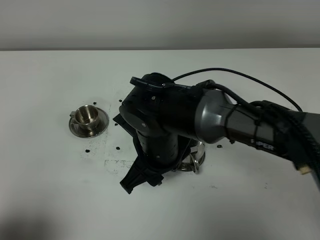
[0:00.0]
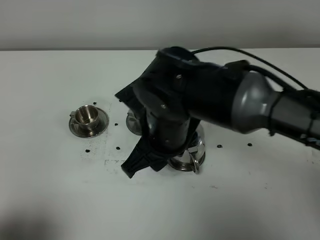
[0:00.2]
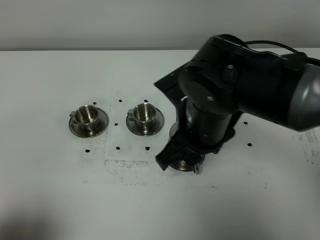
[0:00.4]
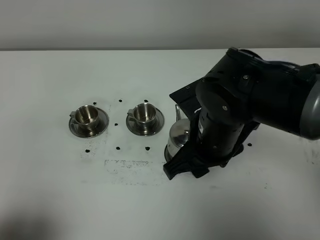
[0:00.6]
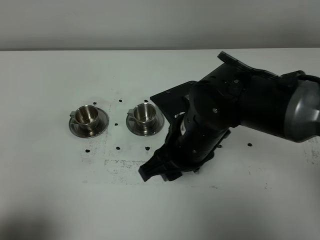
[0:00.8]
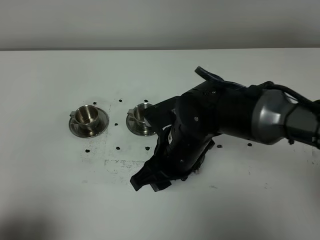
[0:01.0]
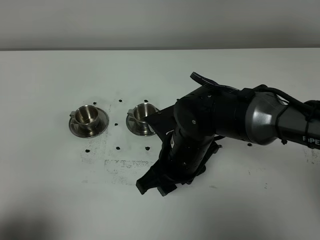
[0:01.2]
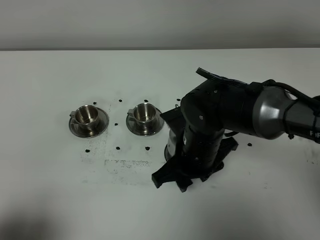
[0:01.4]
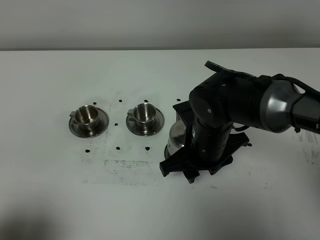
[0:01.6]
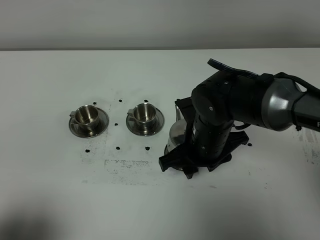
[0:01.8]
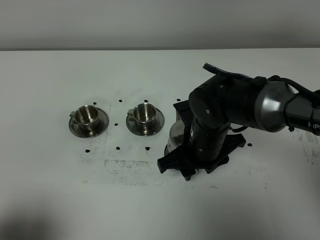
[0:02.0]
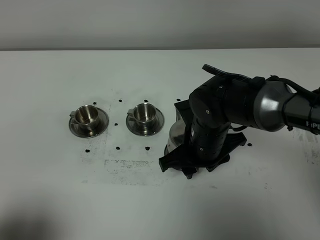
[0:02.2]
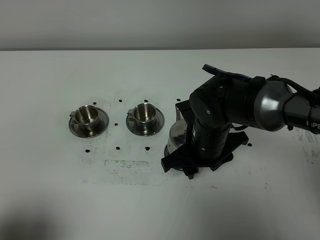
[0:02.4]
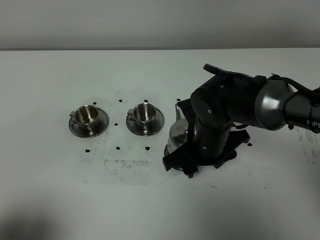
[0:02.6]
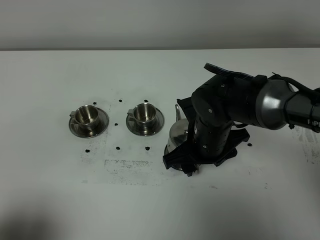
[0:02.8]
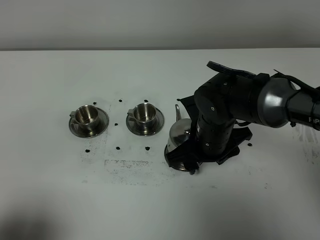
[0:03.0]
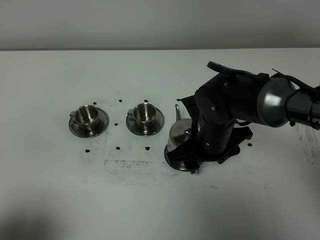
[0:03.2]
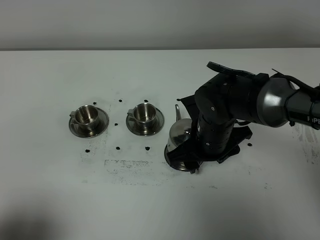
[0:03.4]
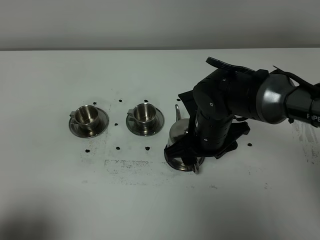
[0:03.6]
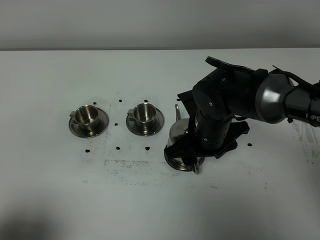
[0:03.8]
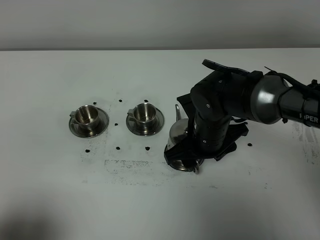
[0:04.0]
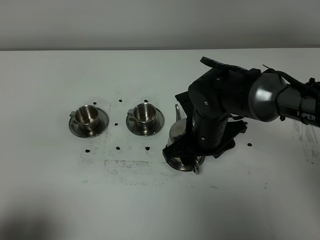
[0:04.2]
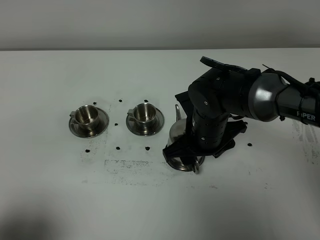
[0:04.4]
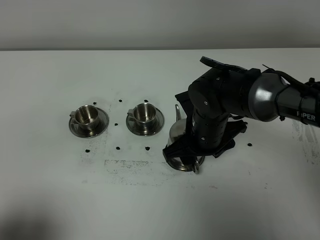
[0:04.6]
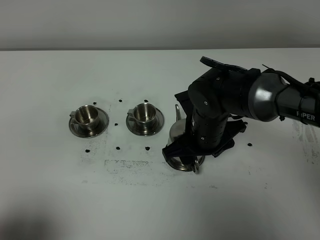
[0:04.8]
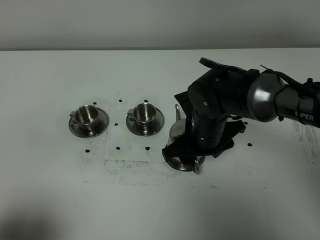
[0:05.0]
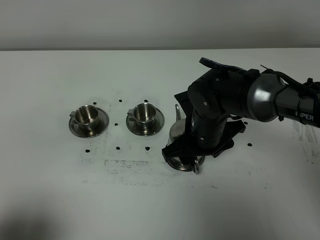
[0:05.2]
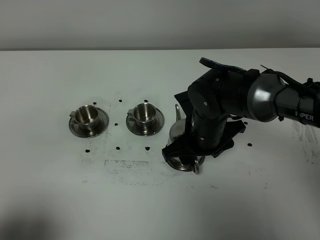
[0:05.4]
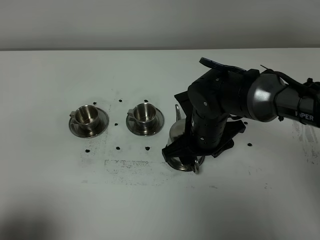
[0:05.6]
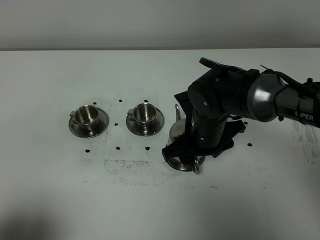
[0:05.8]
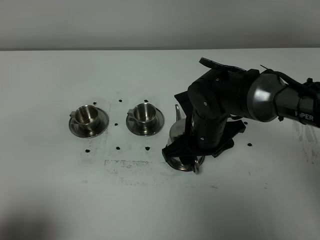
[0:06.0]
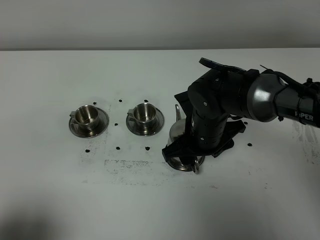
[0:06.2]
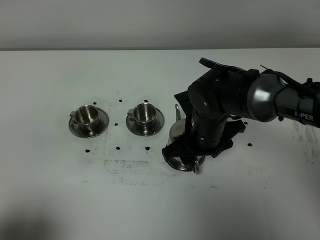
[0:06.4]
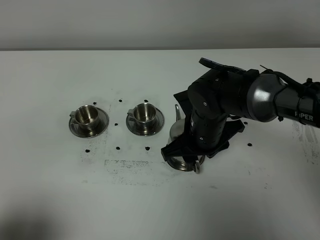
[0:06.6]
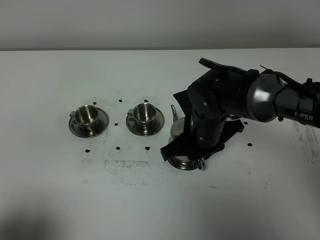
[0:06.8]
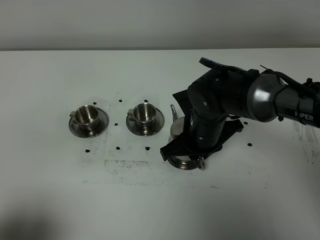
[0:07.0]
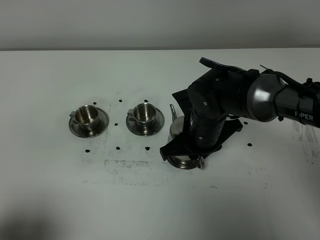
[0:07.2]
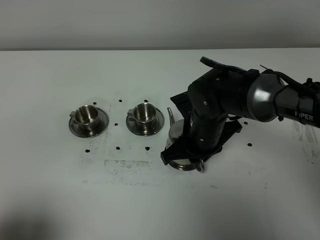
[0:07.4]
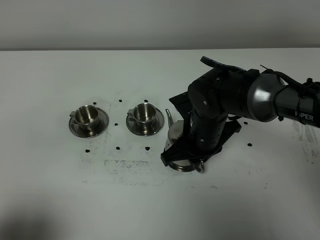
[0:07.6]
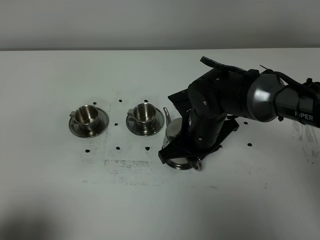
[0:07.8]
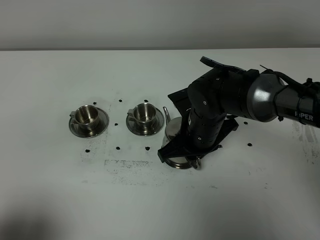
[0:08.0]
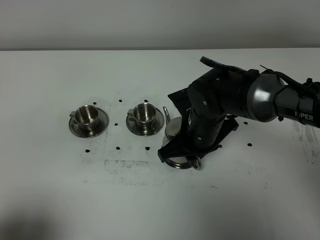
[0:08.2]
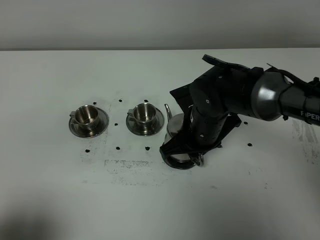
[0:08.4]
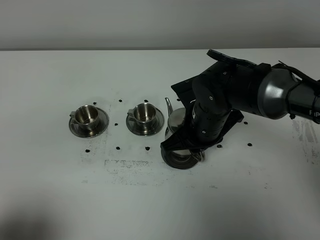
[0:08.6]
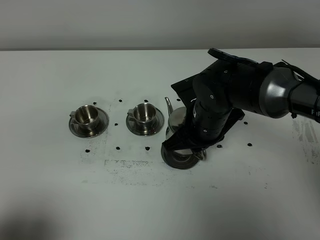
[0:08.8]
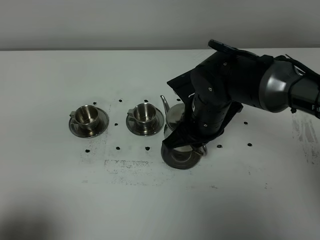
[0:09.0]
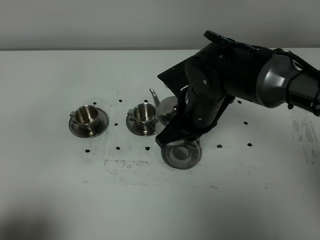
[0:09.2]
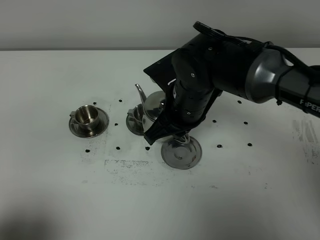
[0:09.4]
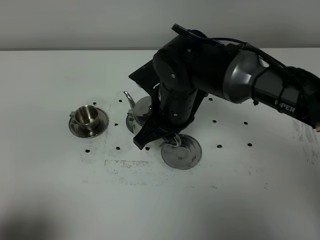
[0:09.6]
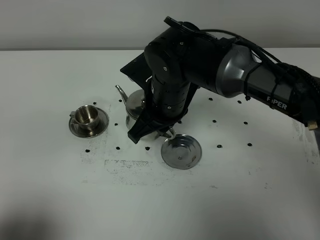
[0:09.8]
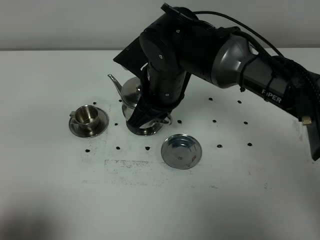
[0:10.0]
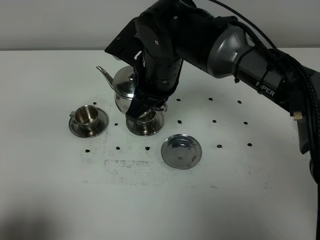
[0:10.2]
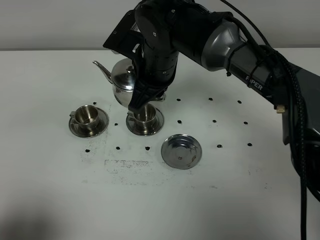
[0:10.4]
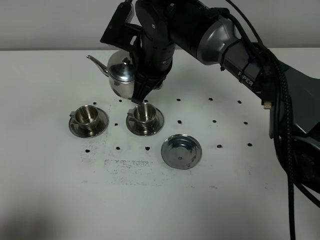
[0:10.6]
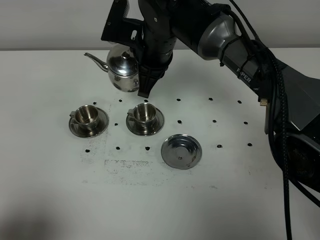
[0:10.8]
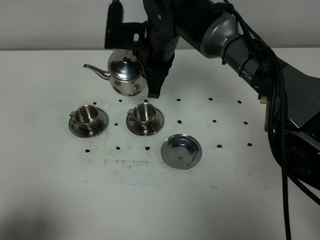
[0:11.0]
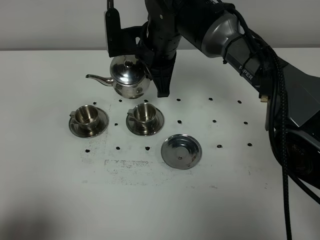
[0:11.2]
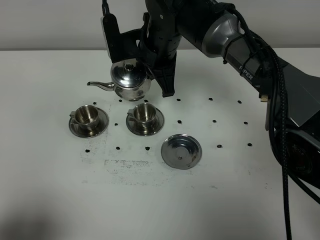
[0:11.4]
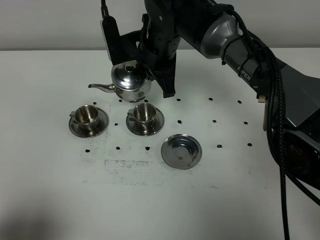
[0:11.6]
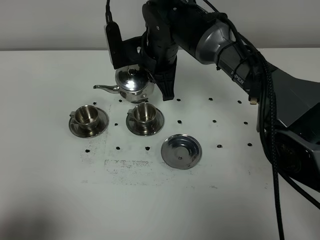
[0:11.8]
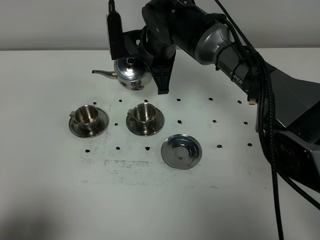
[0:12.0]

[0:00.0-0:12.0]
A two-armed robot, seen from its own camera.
Task of the whole recording: grasp the stainless steel teapot and pour the tea into the two stainless steel teacups one by one, put the stainless steel teapot back in its original place.
Step, 0:00.0 to 0:08.6: Pick up the teapot with the right gripper.
0:00.0 to 0:01.6: The right gripper goes roughly 10 cm to the right, and moves approximately 5 cm upward and comes back.
0:01.6 to 0:04.4: The grippers make only small movements.
0:04.4 to 0:06.0: Neither gripper changes place.
0:06.0 to 0:07.6: The right gripper closes.
0:07.6 to 0:09.0: The grippers stay close to where they were, moving slightly.
0:09.0 to 0:10.4: The right gripper travels to the left, upward and forward by some 10 cm.
0:10.4 to 0:12.0: The right gripper is displaced forward by about 5 cm.

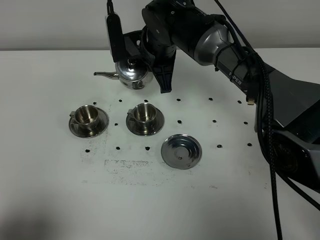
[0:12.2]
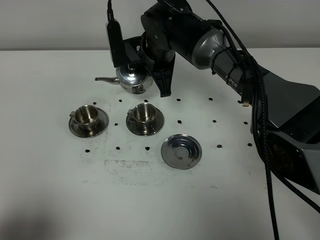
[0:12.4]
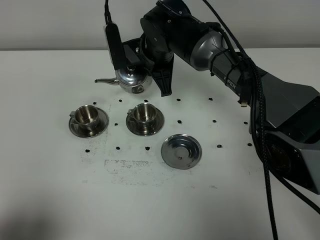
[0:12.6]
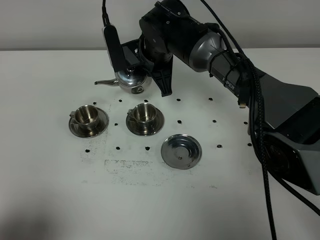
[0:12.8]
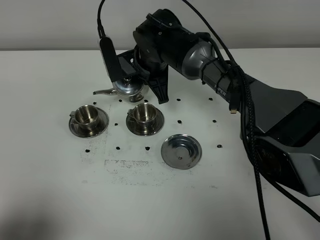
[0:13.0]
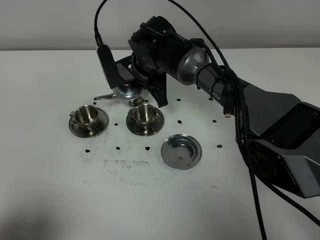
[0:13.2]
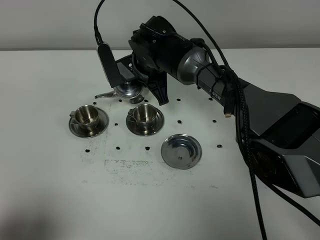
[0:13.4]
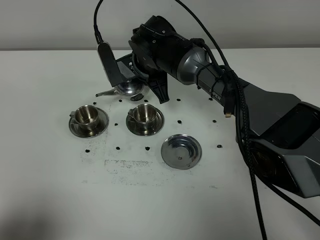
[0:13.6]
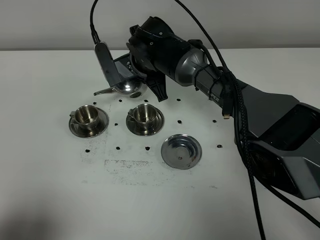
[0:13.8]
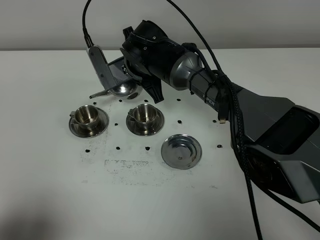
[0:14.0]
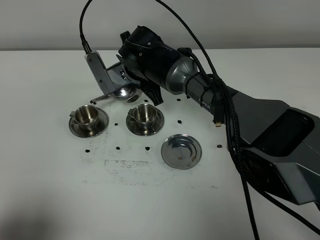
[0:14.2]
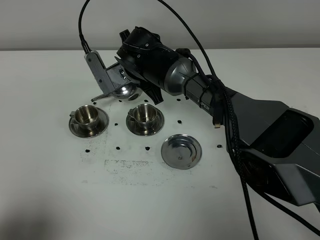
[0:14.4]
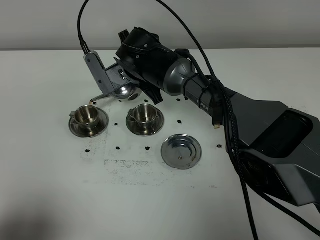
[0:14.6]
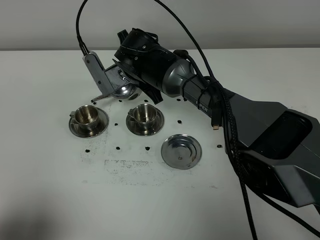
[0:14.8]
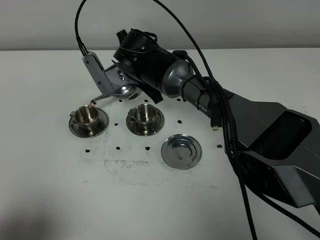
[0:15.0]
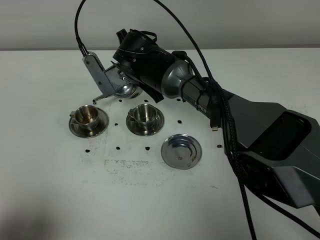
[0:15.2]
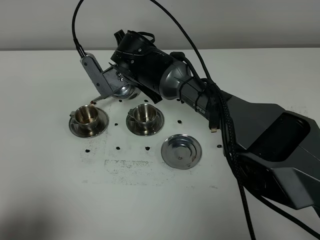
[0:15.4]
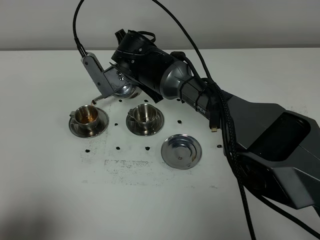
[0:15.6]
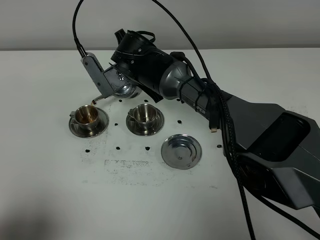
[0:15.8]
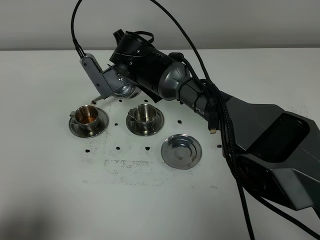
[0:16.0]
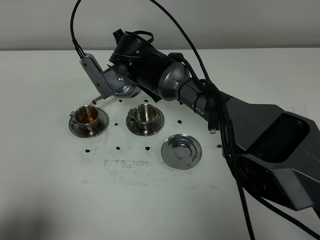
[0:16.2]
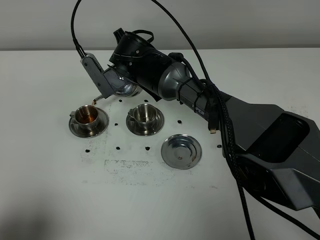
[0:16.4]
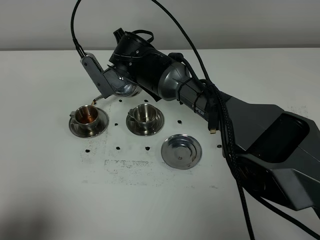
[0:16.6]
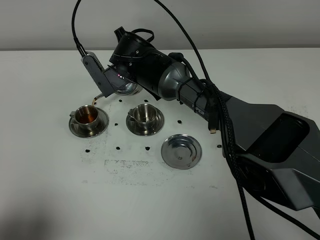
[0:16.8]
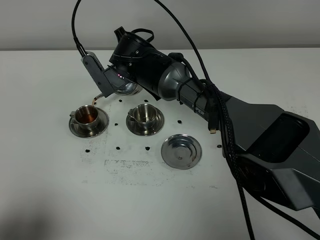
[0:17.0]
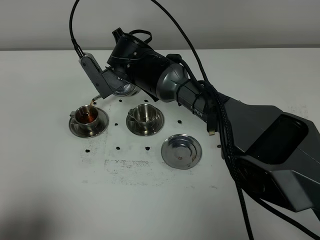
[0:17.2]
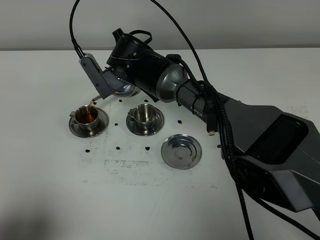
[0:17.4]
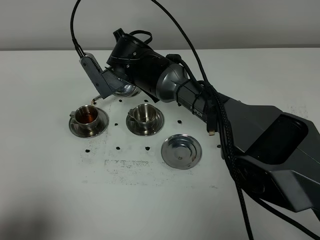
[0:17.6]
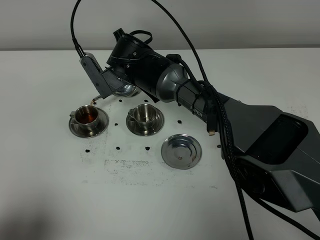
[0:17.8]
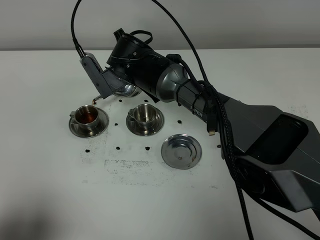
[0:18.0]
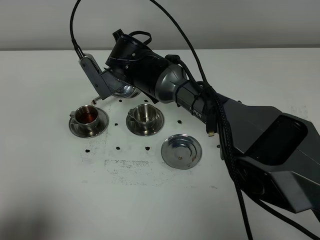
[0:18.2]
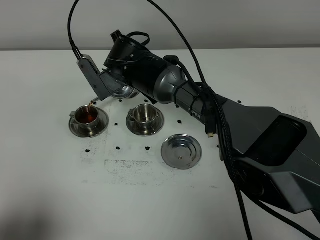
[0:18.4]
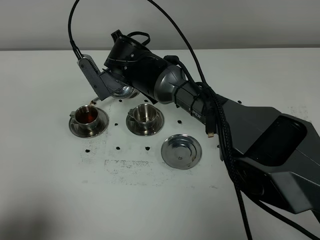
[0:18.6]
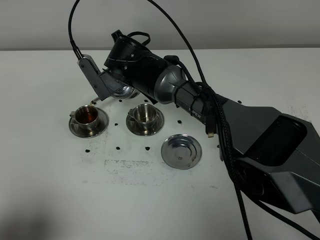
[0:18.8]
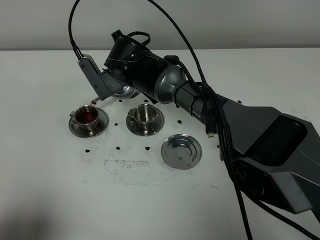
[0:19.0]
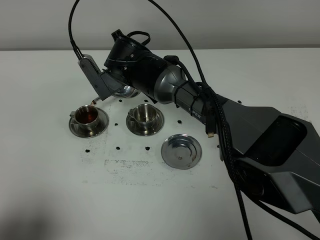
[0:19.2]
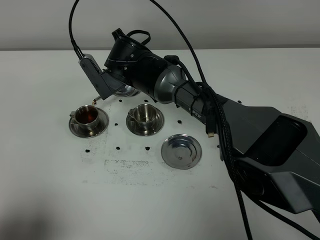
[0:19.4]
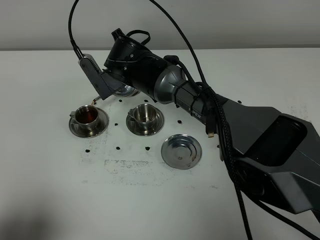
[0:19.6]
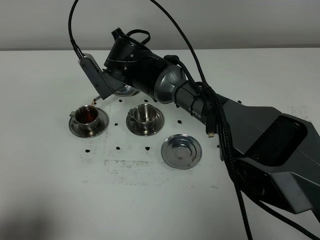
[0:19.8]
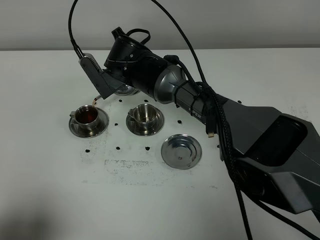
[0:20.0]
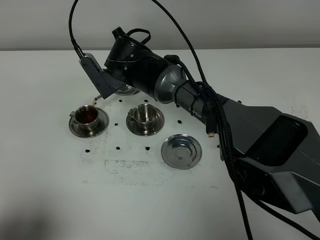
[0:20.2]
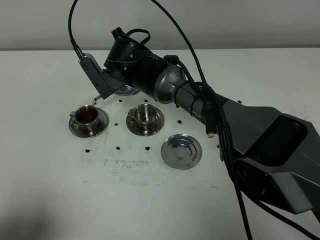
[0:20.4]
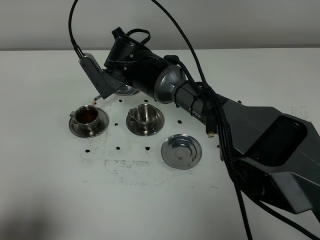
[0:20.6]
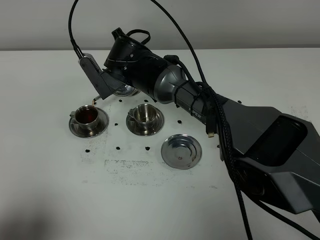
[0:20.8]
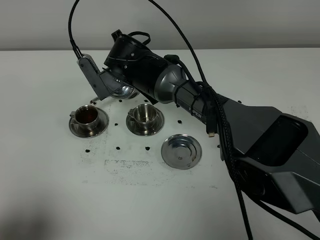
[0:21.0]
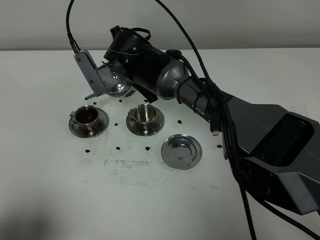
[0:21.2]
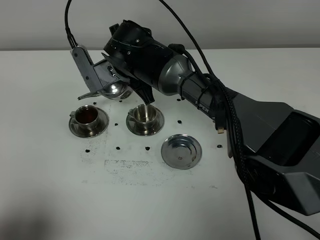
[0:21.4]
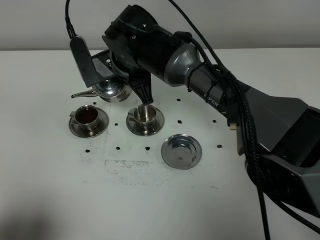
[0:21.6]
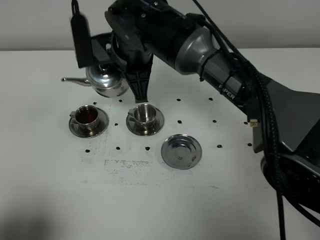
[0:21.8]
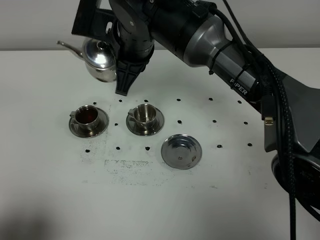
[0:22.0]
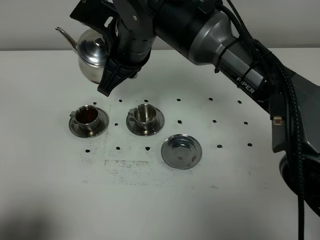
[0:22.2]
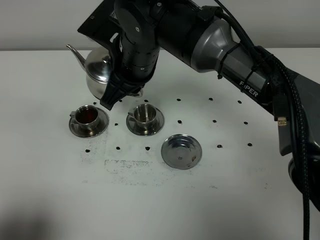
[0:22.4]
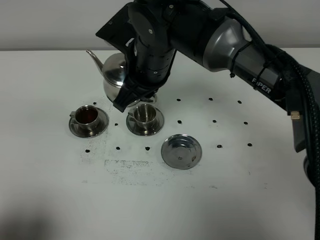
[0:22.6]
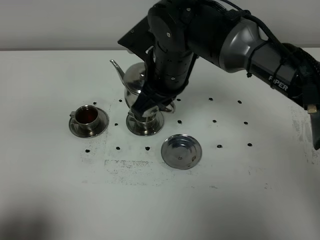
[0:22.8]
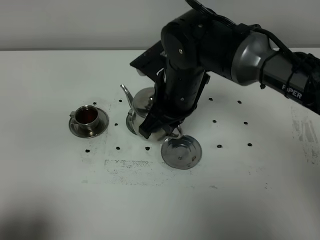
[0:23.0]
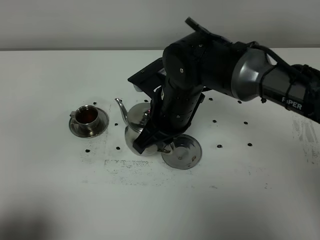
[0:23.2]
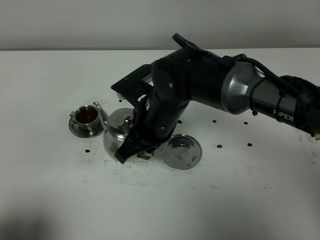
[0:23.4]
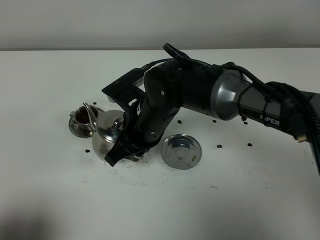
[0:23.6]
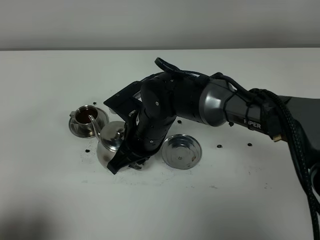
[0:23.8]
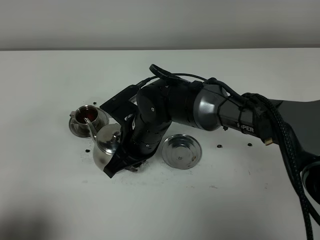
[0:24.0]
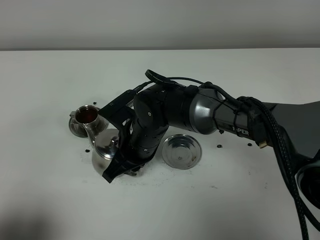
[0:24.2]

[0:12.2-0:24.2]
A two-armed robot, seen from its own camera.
Task of the whole recording: grasp the stainless steel teapot and pour the tea into the two stainless steel teacups one by one, put the stainless steel teapot back in its original place.
Step, 0:12.2 to 0:21.0: Pour tea into the teacup with the right gripper.
0:13.8 to 0:15.2: The grippers make only small movements.
0:15.2 to 0:18.2: Both grippers stay about where they are.
0:18.2 to 0:19.8: Neither gripper changes place.
0:19.8 to 0:21.2: The grippers stay close to where they were, moving slightly.
0:21.2 to 0:22.6: The right gripper goes about 10 cm upward and backward.
0:22.6 to 0:24.2: The right gripper goes some 15 cm downward and backward.
